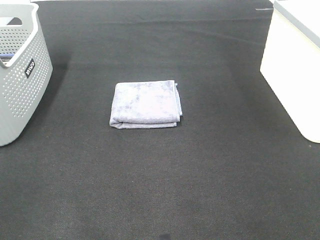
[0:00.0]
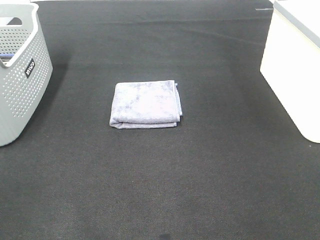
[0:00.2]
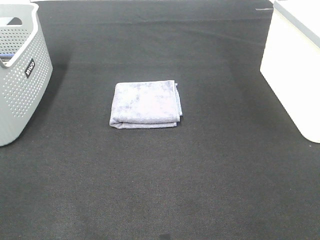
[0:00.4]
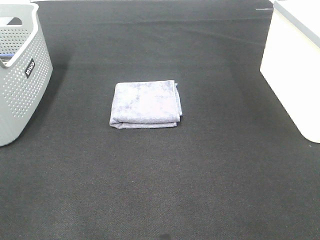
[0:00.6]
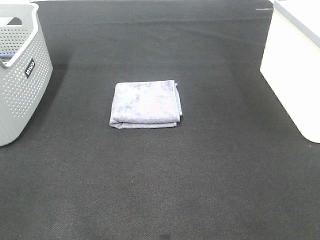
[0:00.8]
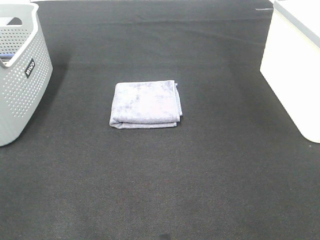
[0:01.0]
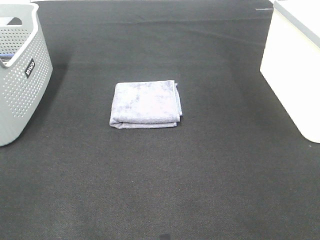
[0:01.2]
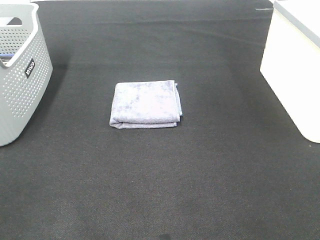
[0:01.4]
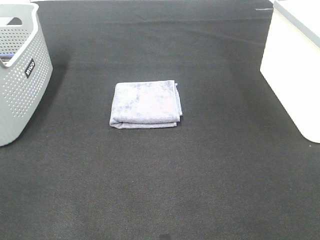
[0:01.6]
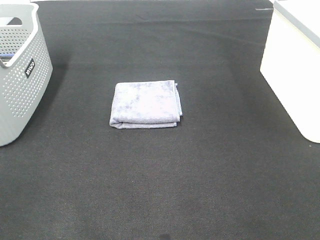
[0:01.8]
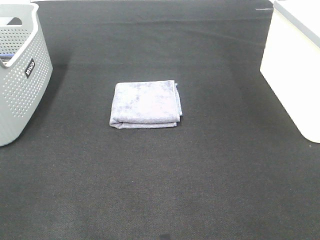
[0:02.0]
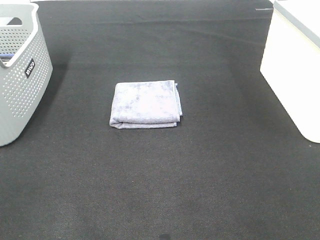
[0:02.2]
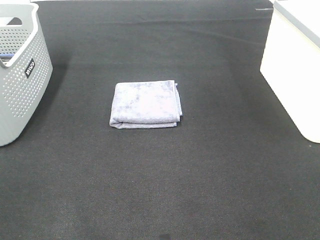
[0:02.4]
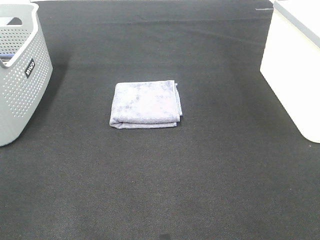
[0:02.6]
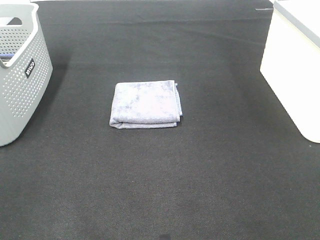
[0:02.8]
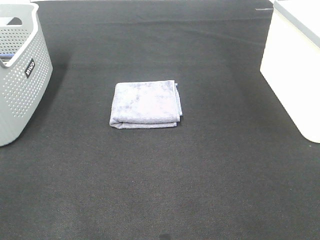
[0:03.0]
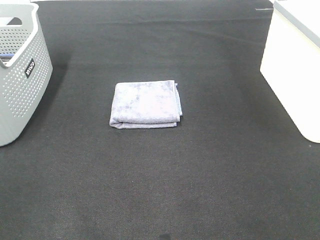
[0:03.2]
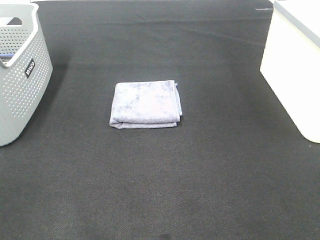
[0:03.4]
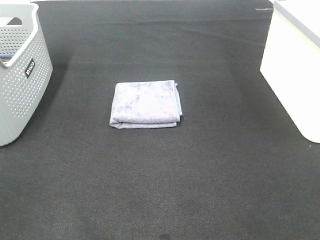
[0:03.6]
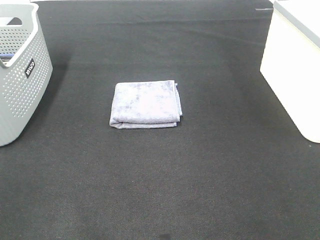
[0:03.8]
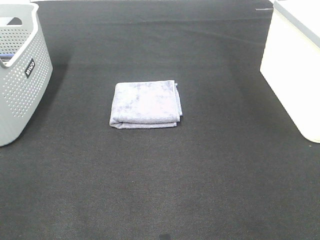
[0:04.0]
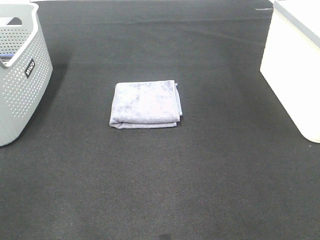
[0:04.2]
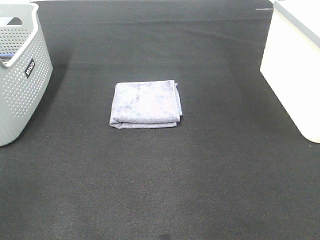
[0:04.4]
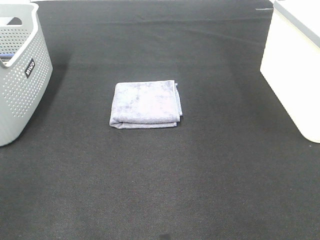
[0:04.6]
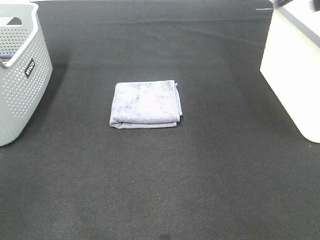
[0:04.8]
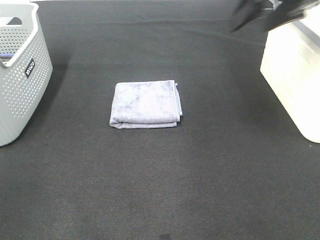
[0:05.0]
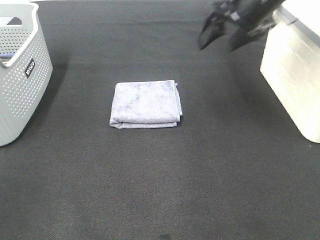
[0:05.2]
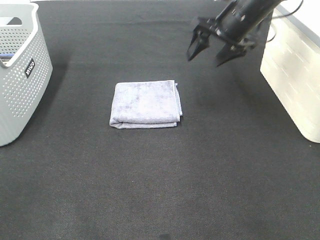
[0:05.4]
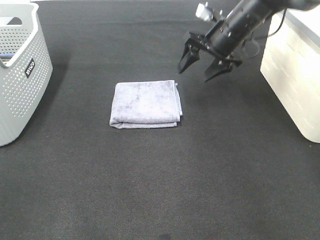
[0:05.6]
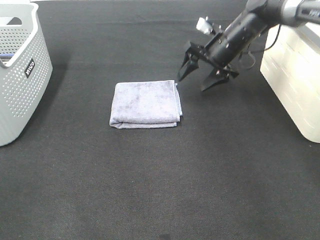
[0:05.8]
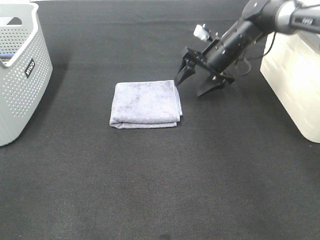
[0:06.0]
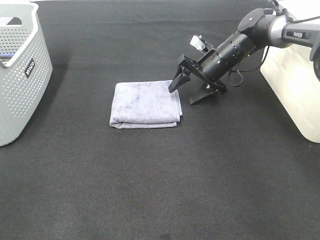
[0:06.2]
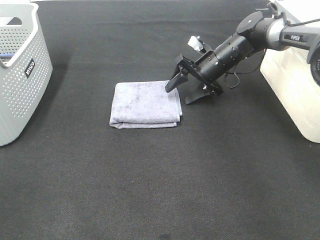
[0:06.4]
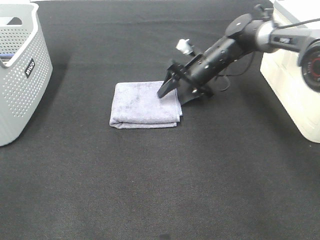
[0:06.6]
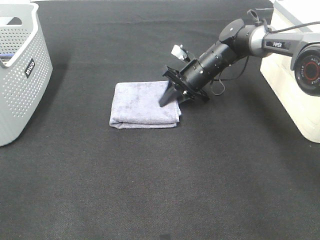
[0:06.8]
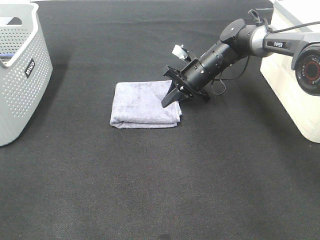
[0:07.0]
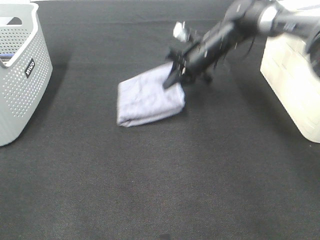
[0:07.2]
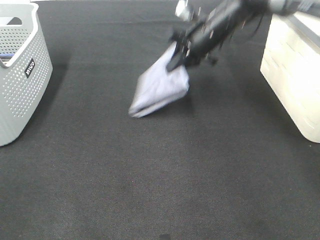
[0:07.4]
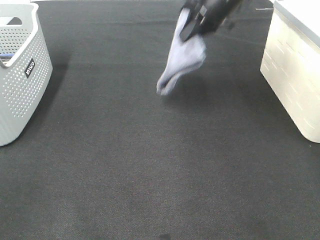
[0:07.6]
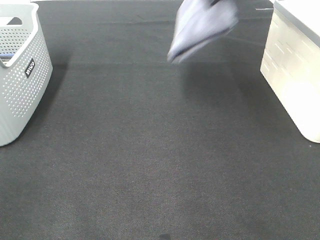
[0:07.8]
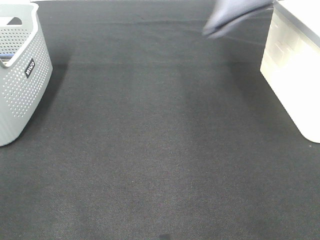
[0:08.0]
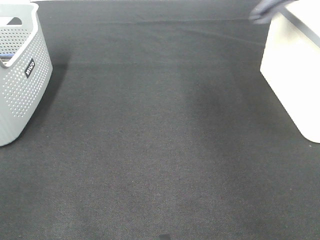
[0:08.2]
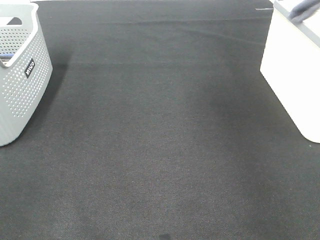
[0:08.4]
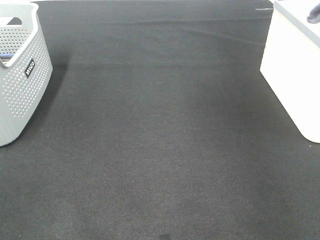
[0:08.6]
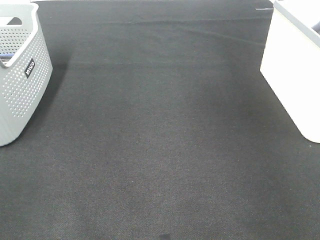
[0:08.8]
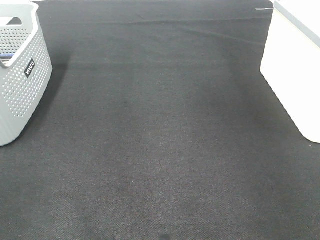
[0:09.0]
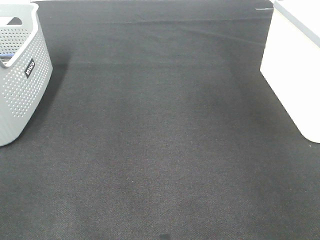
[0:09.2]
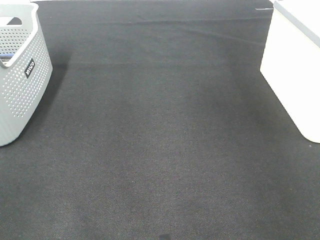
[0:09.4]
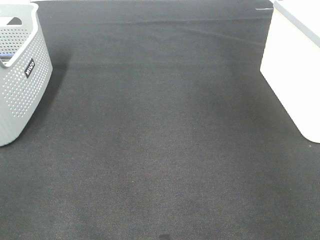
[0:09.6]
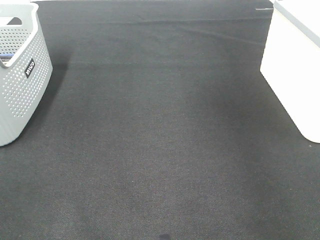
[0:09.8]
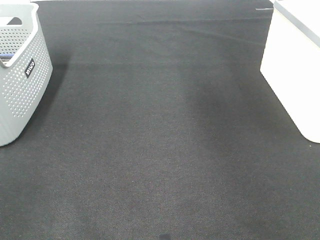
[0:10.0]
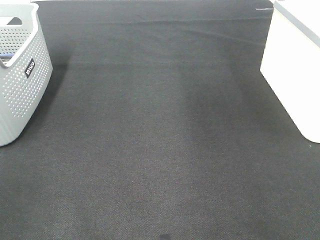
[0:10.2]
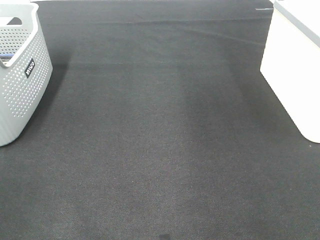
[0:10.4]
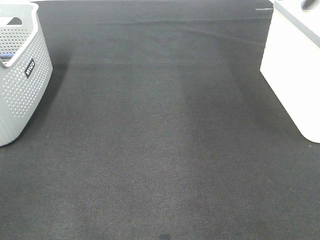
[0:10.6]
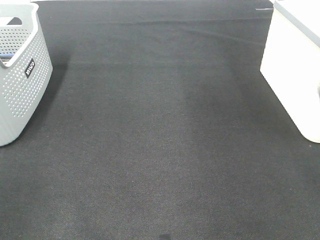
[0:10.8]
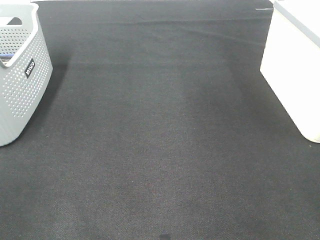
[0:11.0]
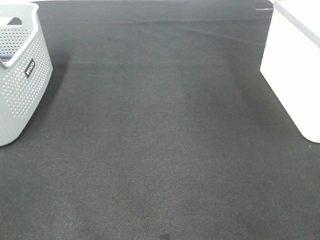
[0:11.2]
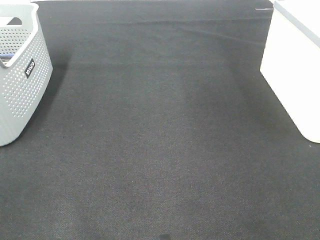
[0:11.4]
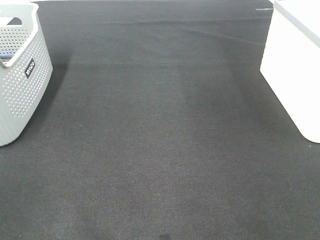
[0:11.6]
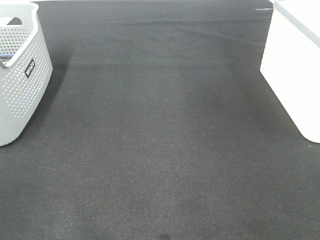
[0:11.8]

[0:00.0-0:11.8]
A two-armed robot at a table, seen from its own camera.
Step, 0:00.0 to 0:07.0: Right hand: grab the folded grey towel.
Step, 0:07.2 to 0:09.2: Right hand: place the grey towel in right basket.
0:00.0 to 0:03.0: Neither gripper changes place.
0:04.4 to 0:06.0: The right gripper is displaced downward, forward and to the left by some 40 cm.
0:06.0 to 0:07.4: The right gripper is displaced upward by approximately 10 cm, and closes up.
0:07.4 to 0:08.8: The right gripper heads to the right and upward, covering about 35 cm.

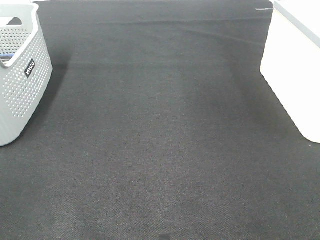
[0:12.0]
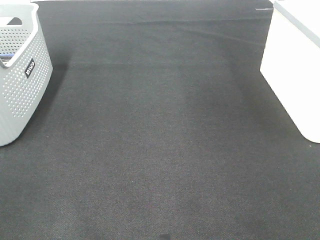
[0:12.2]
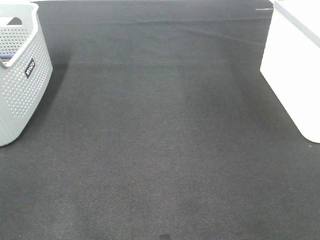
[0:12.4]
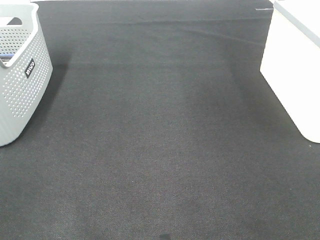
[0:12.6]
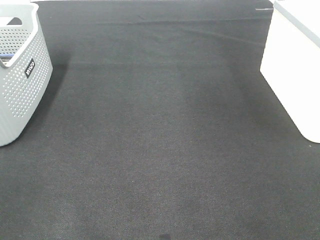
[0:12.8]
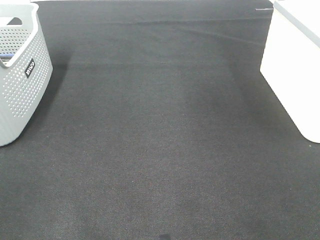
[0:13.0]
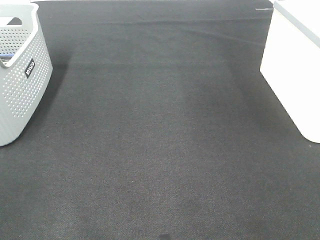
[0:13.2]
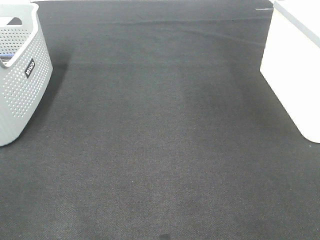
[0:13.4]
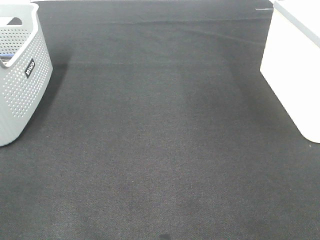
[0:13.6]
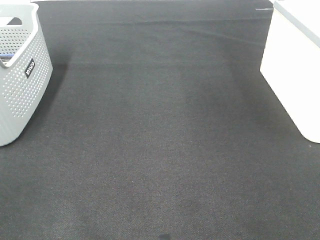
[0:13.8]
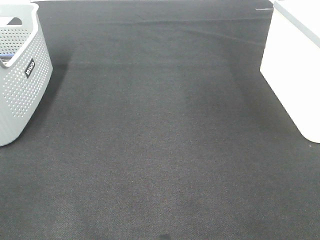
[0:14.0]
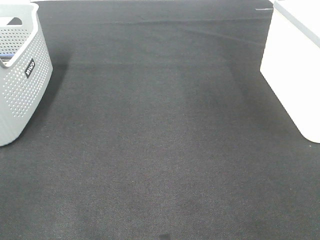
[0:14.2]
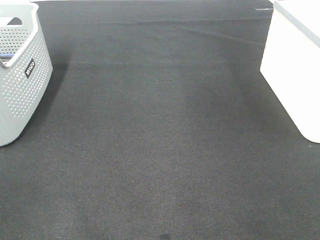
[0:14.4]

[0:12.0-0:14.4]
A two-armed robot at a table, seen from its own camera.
0:13.2 to 0:14.4: Both grippers stay about where they are.

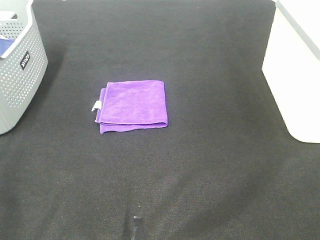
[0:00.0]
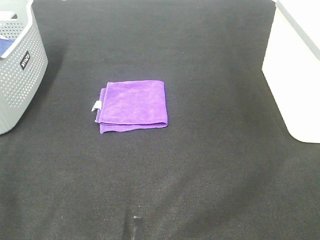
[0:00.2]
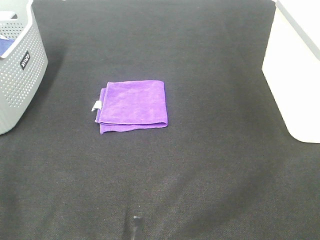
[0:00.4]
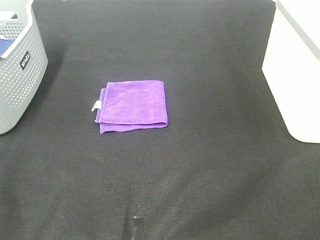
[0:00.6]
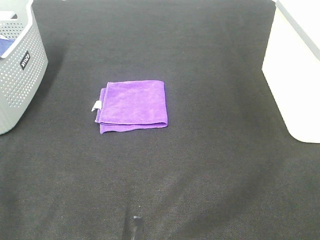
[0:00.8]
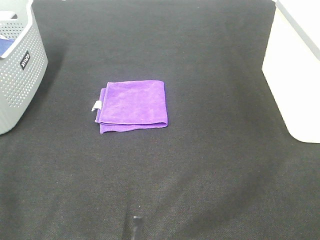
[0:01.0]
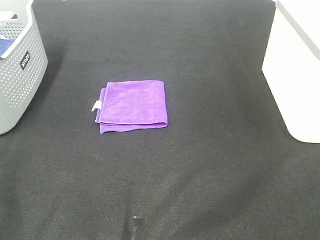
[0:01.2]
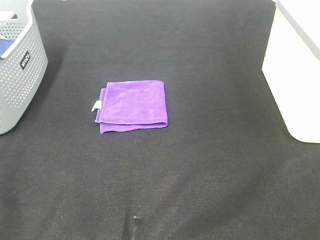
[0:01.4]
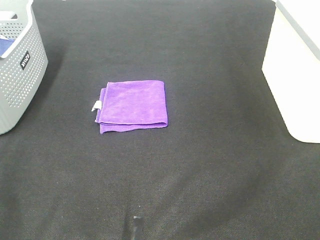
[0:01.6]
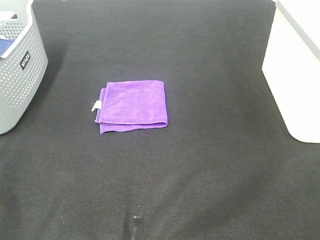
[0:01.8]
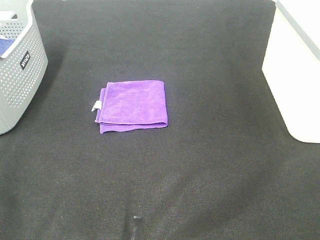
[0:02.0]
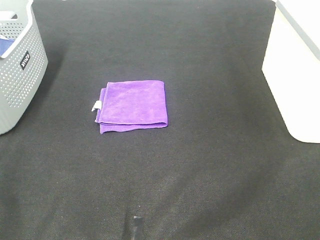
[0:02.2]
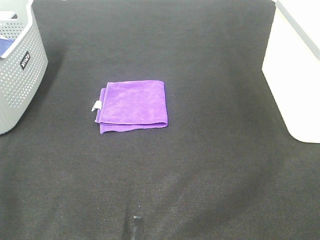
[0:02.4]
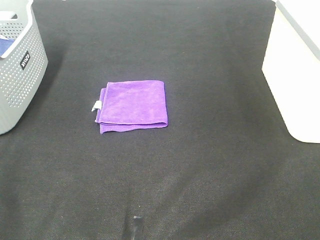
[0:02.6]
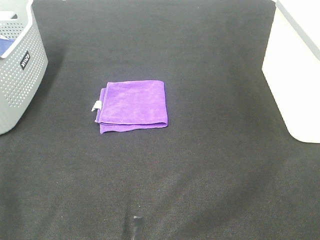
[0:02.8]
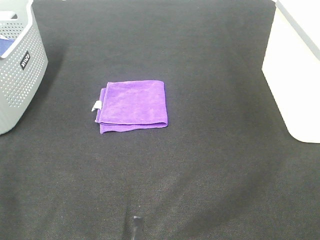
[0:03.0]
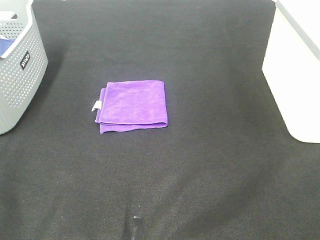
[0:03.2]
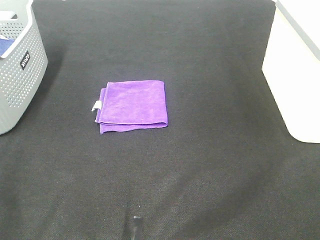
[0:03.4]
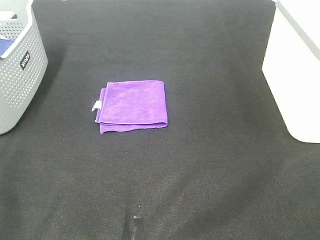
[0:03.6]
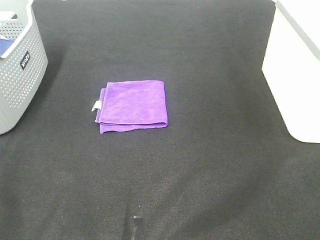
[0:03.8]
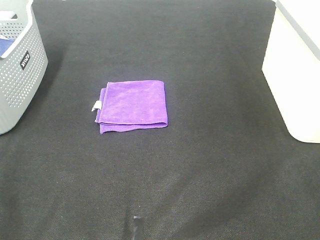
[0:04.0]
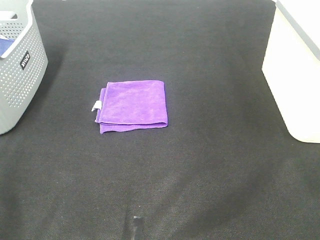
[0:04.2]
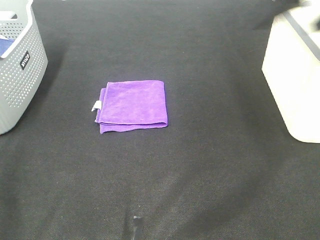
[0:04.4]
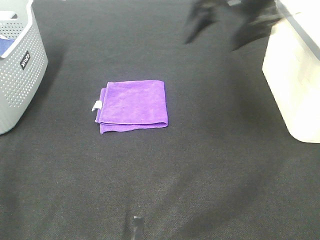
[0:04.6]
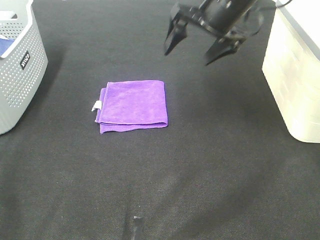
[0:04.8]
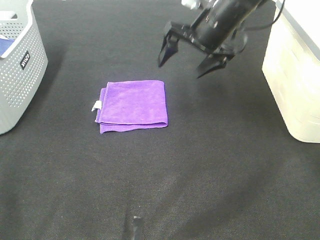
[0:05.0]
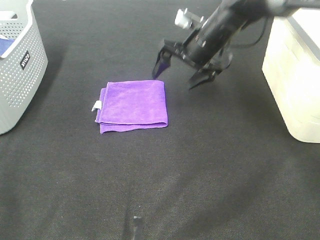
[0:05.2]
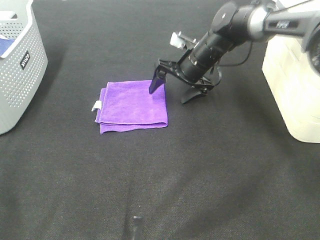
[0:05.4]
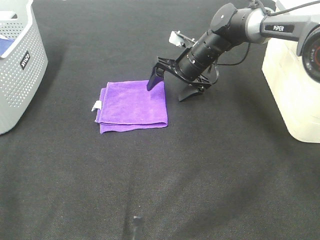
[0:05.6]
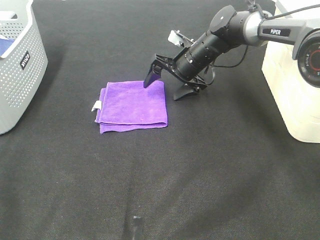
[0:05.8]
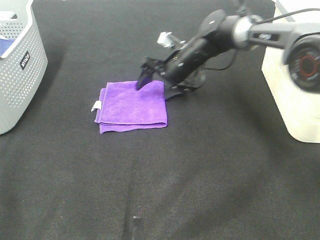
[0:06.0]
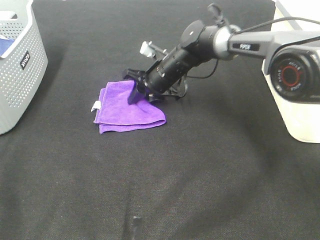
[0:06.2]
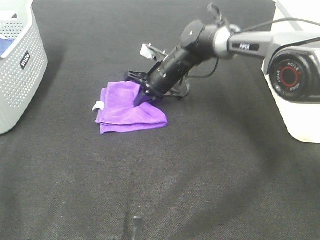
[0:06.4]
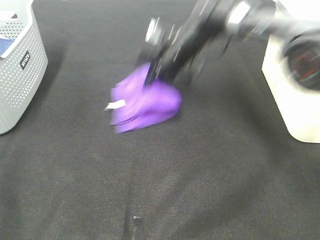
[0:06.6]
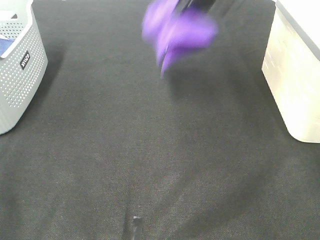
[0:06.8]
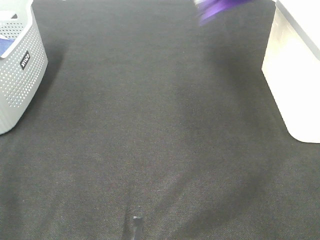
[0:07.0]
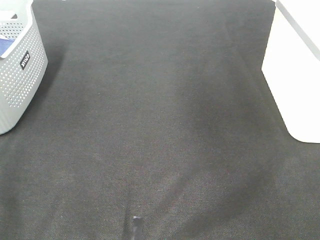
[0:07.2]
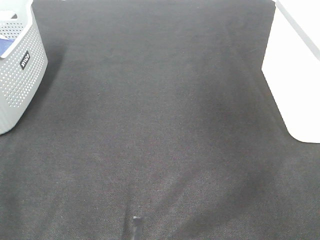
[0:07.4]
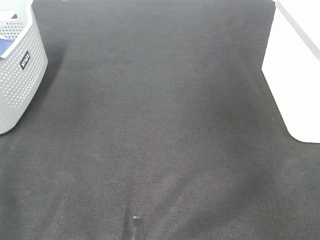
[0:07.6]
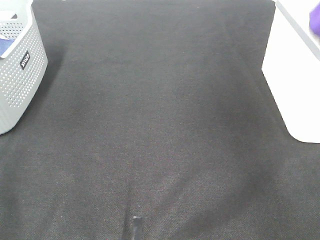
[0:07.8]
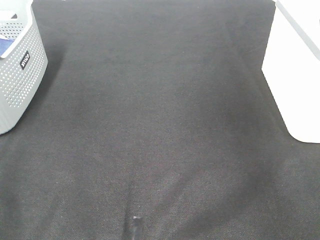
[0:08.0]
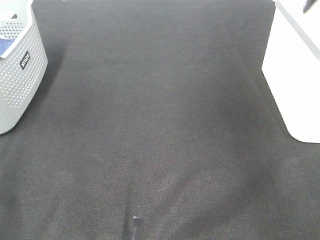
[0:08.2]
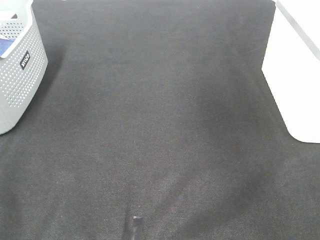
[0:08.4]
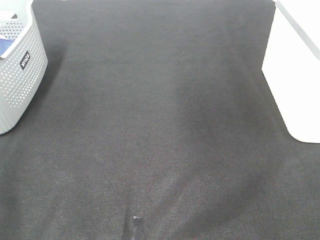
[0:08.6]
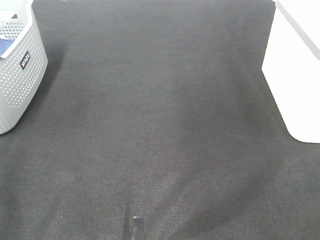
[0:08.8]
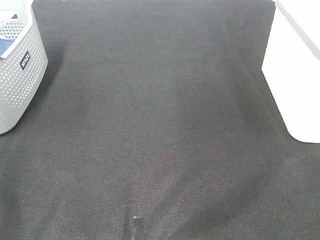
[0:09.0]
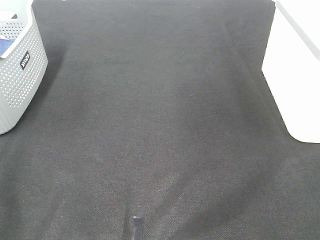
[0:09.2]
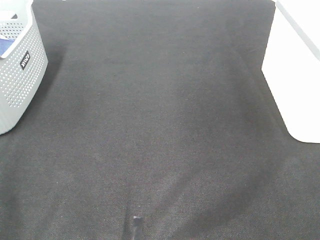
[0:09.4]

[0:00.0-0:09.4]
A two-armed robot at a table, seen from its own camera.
Step, 0:00.0 to 0:06.4: Right hand: grab the folded purple towel.
Step, 0:06.6 to 0:08.0: Right hand: place the purple towel in right basket.
0:00.0 to 0:03.2: Neither gripper changes place.
0:03.2 to 0:04.8: The right gripper moves forward, about 40 cm.
0:04.8 to 0:06.2: The right gripper is displaced downward and to the left by roughly 20 cm, and closes.
0:06.2 to 0:07.8: The right gripper heads to the right and upward, covering roughly 40 cm.
